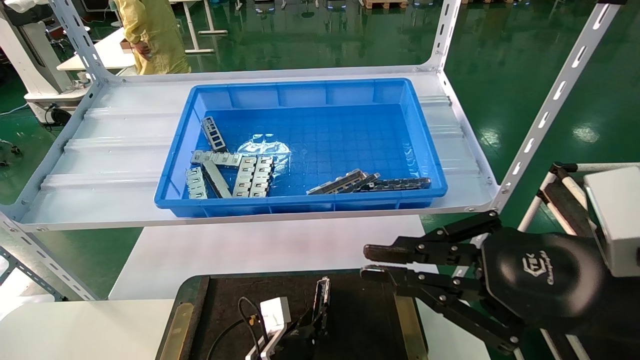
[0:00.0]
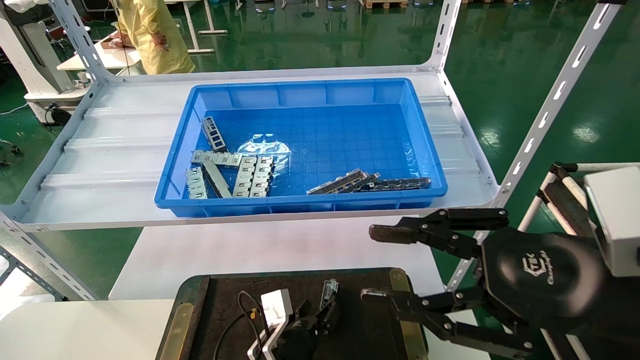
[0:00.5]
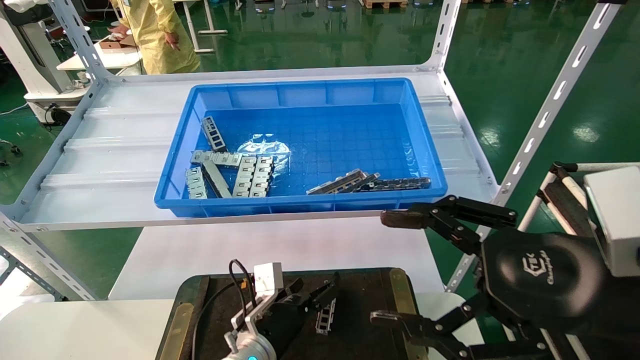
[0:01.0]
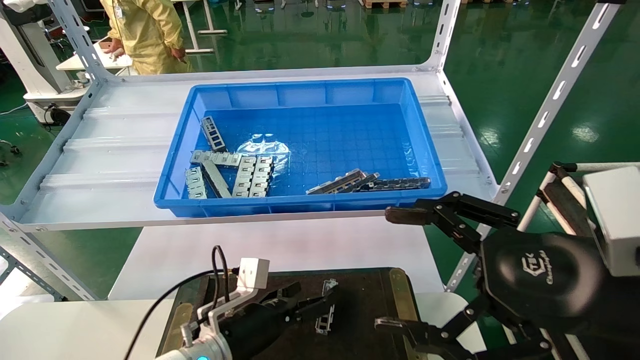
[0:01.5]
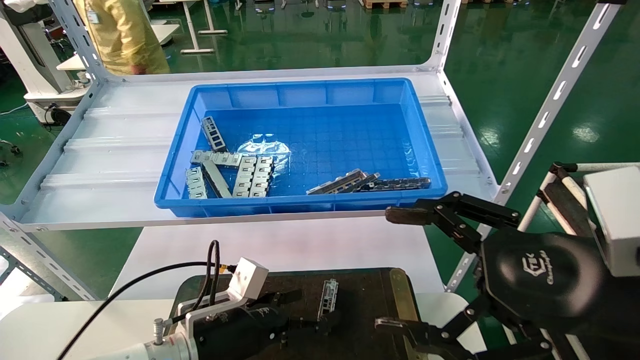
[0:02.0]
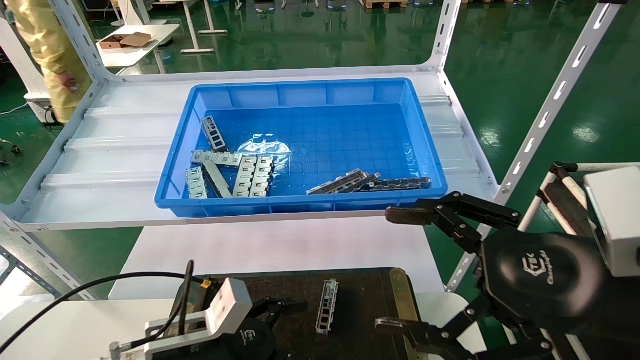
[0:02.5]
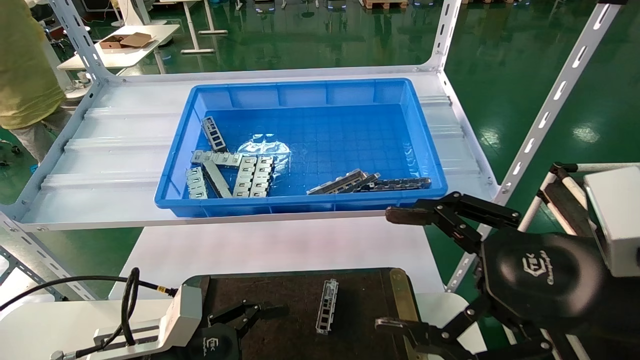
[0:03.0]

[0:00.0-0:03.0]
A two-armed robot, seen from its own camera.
Task of the whole recording: Grasp the part with one hand and place it on the black container.
0:00.0 to 0:01.5: The right gripper opens its fingers, while the left gripper shifts about 15 cm upward and to the left, and opens.
0:01.5 to 0:03.0: The left gripper goes roughly 10 cm to the left and backward.

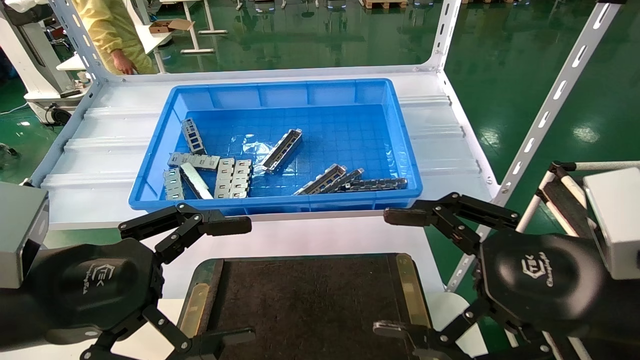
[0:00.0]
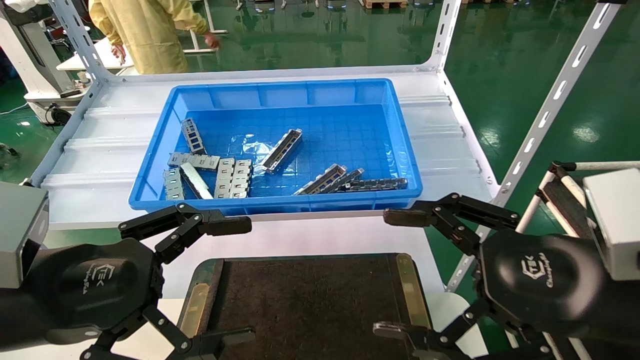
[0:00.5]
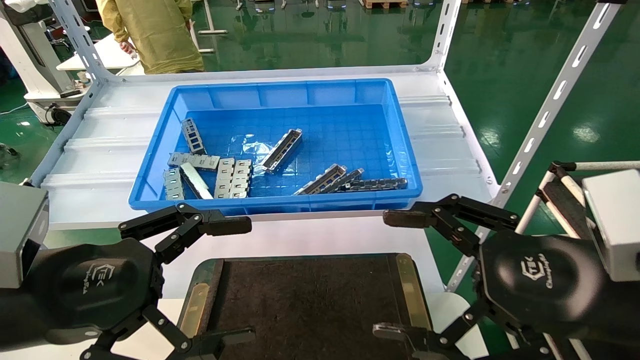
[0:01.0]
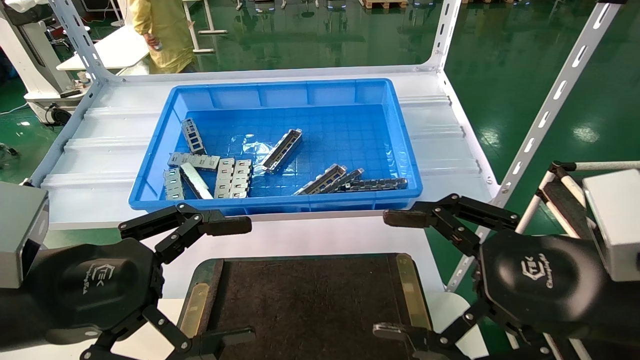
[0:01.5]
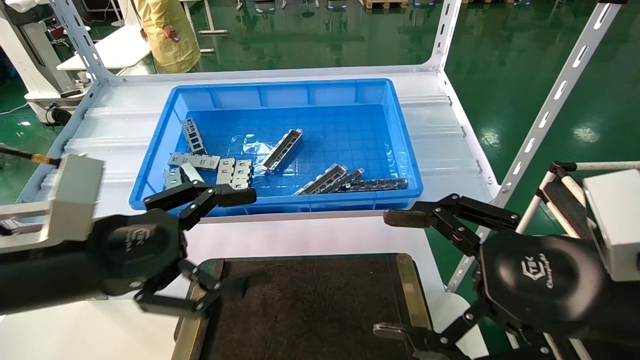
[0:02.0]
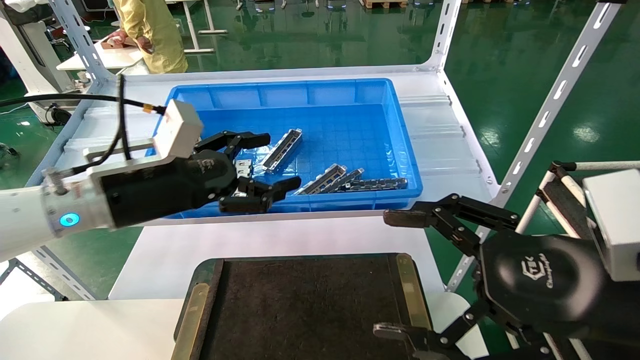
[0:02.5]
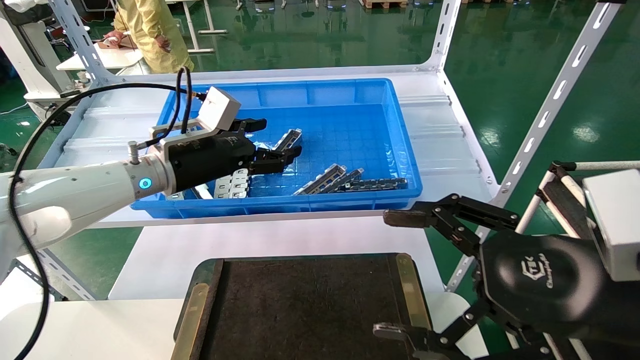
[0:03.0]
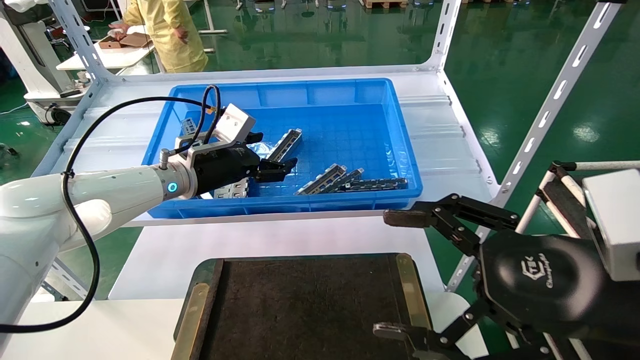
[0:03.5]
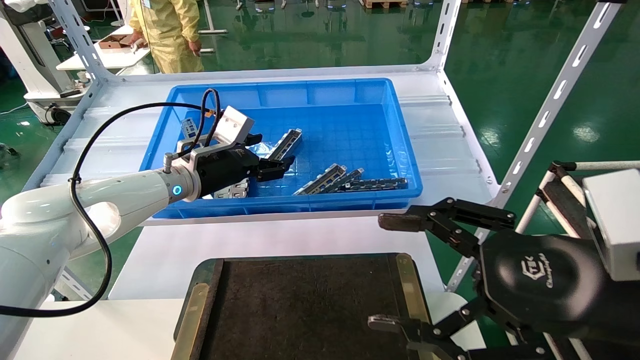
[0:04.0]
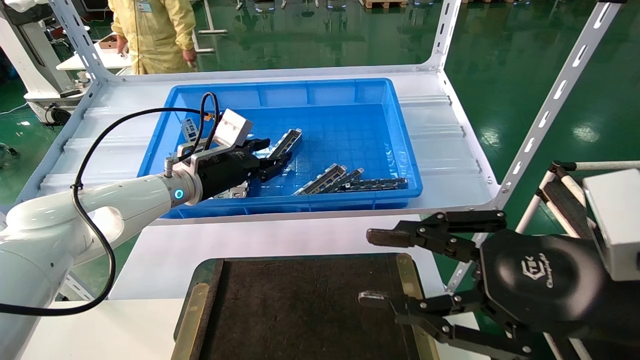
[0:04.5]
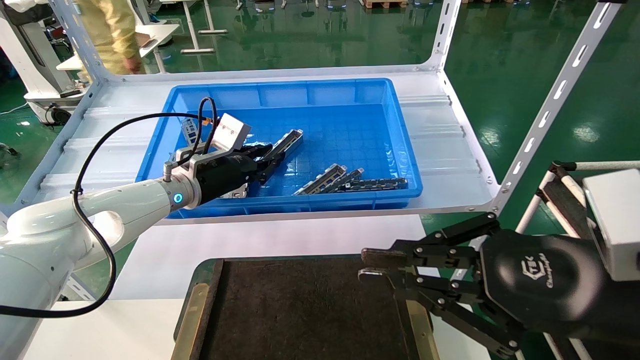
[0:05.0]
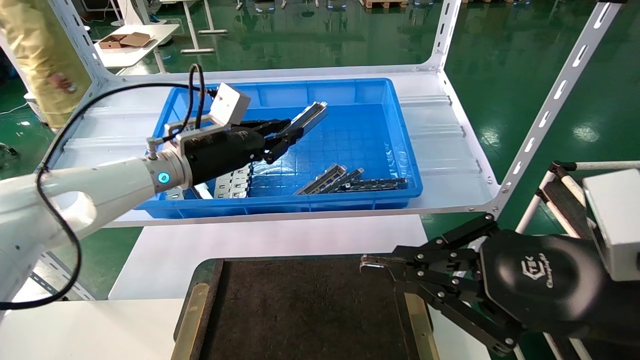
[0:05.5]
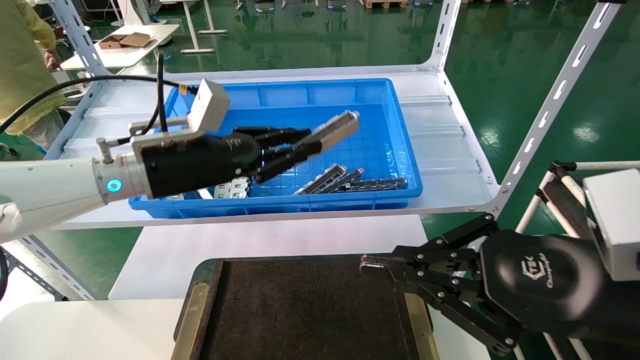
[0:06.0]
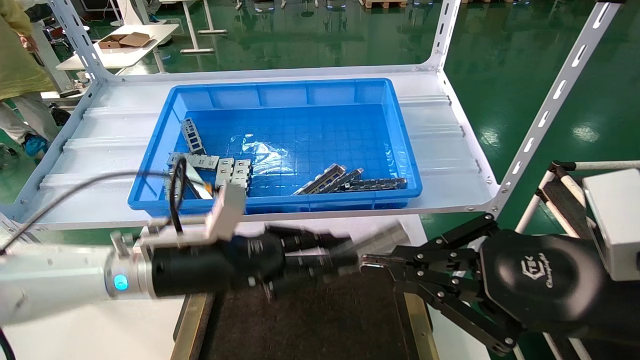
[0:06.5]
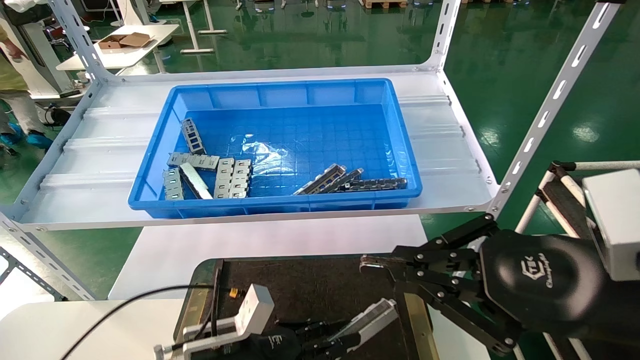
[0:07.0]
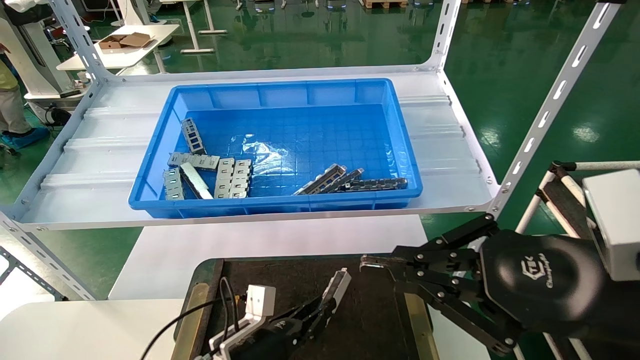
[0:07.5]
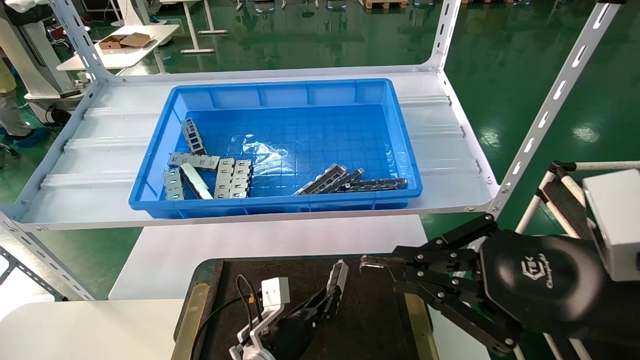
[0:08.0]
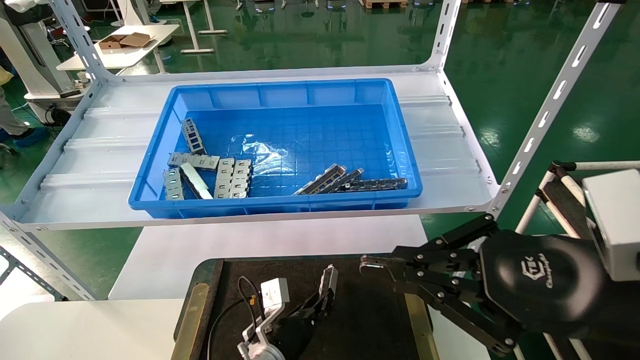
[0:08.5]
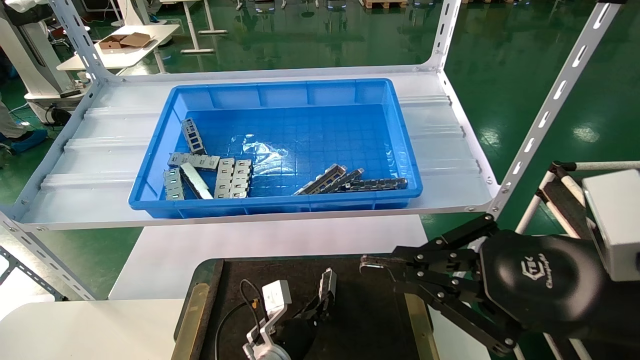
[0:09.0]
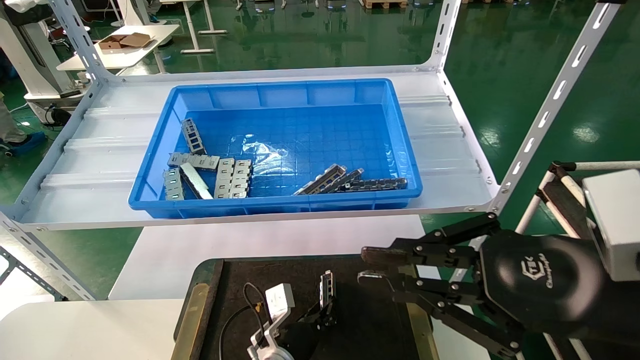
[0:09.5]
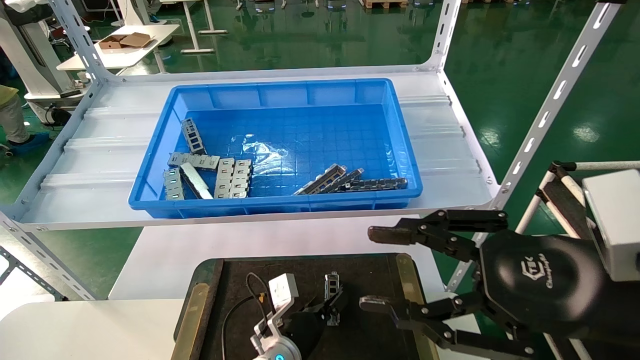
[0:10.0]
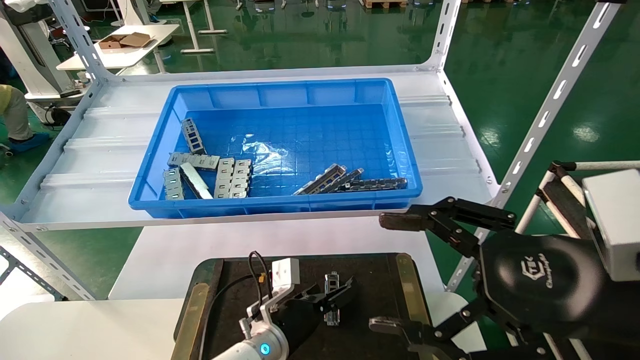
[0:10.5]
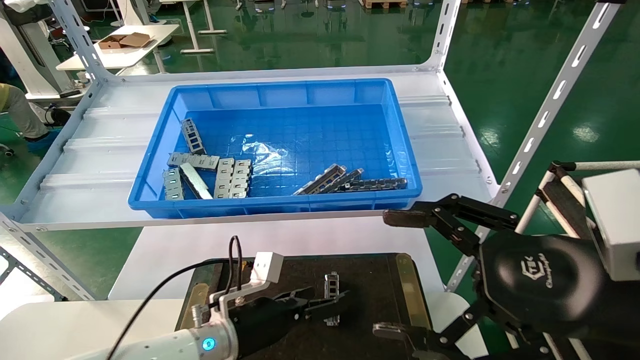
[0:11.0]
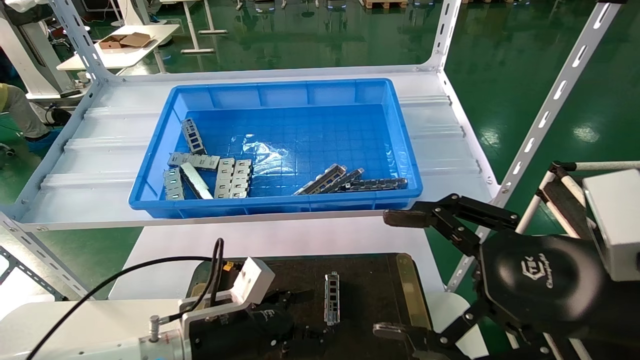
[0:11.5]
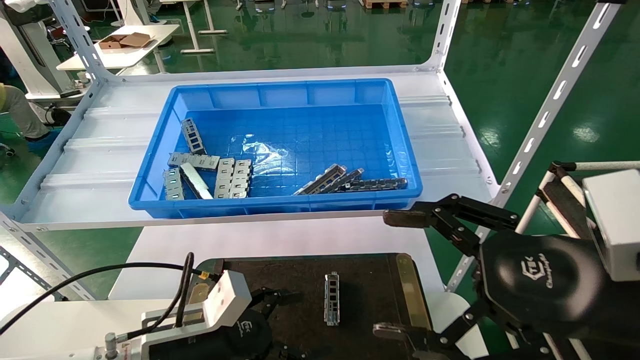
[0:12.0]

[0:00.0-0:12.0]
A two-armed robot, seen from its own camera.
Task of the whole recording: Grasp the part with one hand and place it on the black container.
Step, 0:02.0 to 0:05.0: Pick up the front USB bracket from the feeding area.
Step, 0:05.5 to 0:09.5: Place the front USB bracket into the box.
0:00.0 to 0:02.0: The left gripper is displaced forward by approximately 5 cm.
0:02.0 to 0:04.0: The left gripper shifts about 25 cm forward.
0:04.0 to 0:06.0: The right gripper closes. Meanwhile the left gripper travels backward by approximately 10 cm, and closes its fingers.
0:06.0 to 0:08.0: The left gripper travels downward by some 30 cm.
0:08.0 to 0:10.0: The right gripper opens up, while the left gripper opens.
0:10.0 to 0:12.0: The right gripper opens its fingers; the left gripper goes roughly 20 cm to the left, upward and backward, and opens its fingers.
